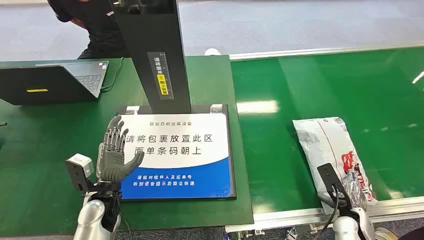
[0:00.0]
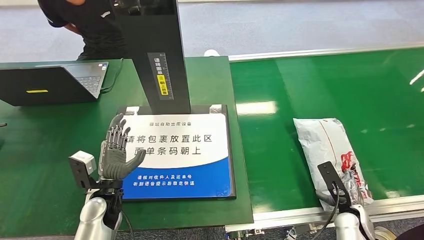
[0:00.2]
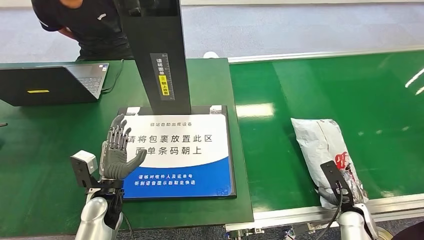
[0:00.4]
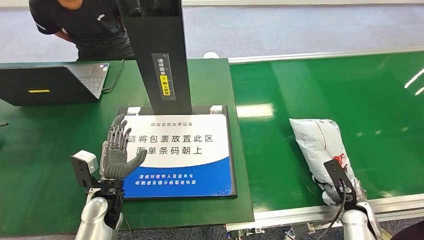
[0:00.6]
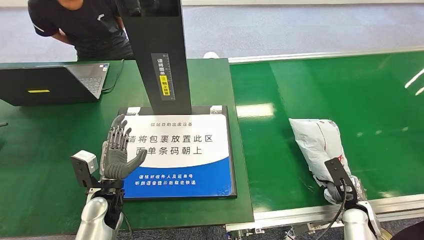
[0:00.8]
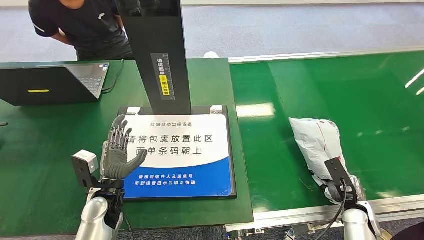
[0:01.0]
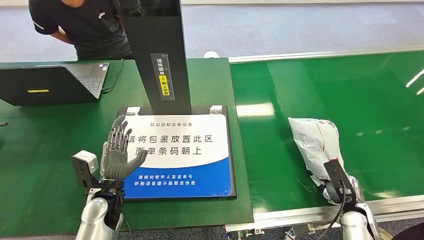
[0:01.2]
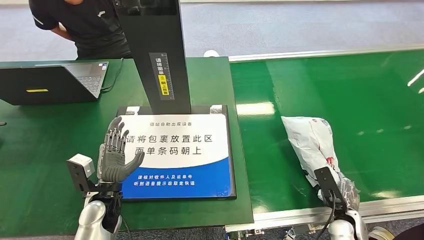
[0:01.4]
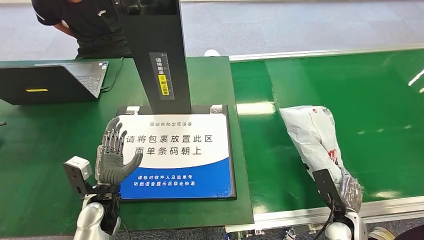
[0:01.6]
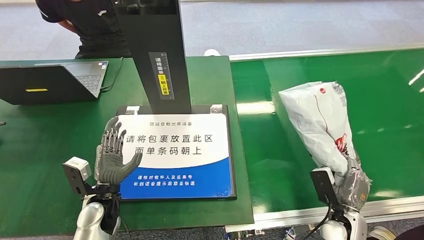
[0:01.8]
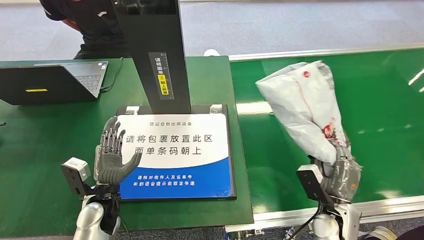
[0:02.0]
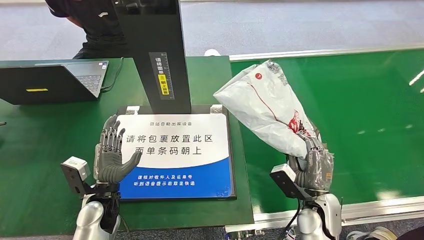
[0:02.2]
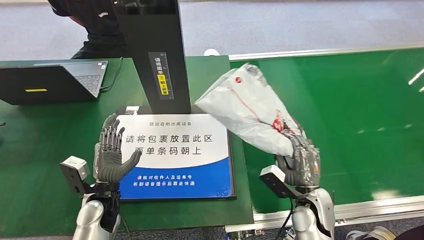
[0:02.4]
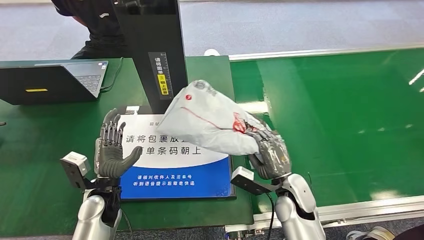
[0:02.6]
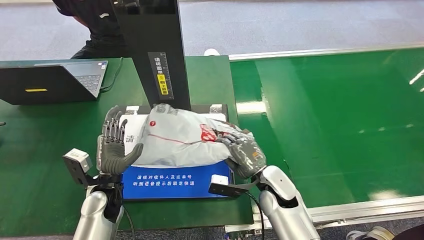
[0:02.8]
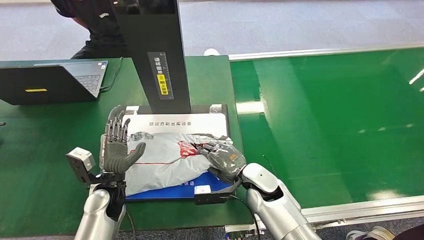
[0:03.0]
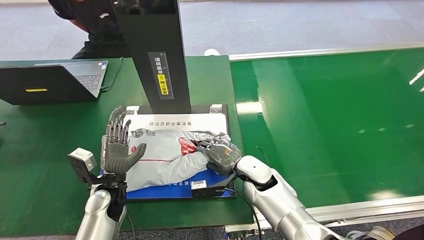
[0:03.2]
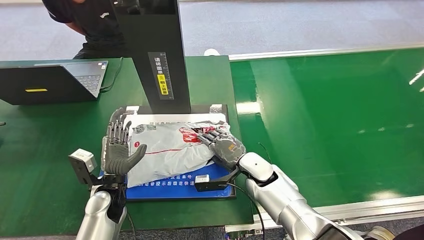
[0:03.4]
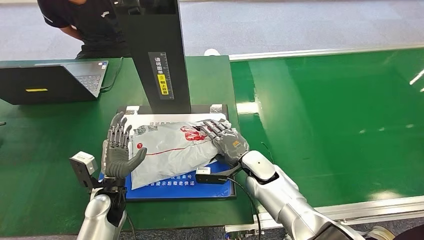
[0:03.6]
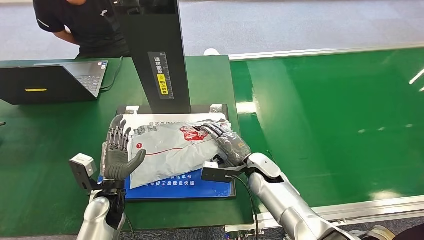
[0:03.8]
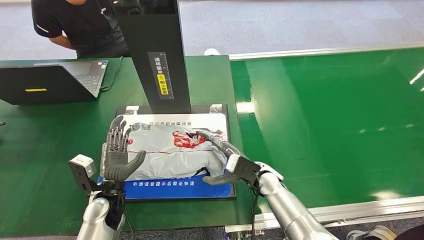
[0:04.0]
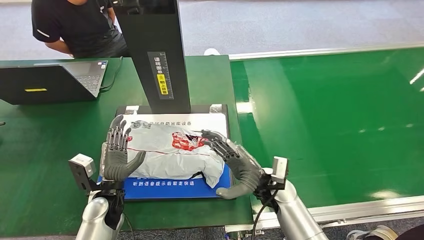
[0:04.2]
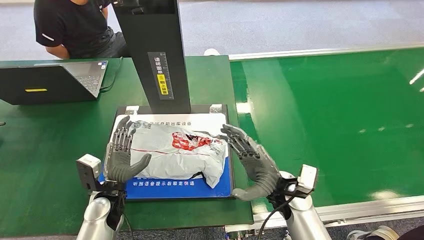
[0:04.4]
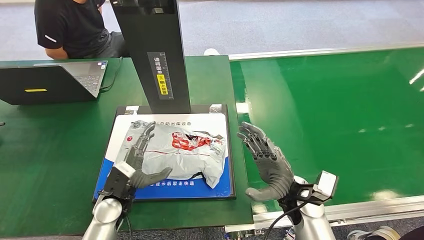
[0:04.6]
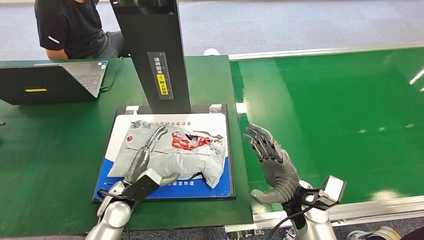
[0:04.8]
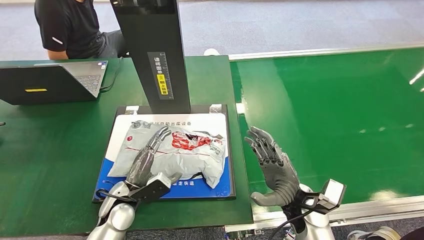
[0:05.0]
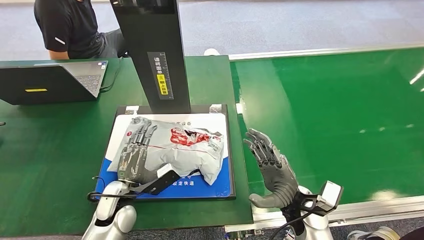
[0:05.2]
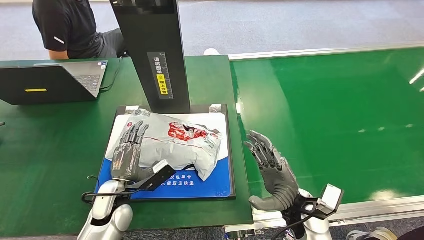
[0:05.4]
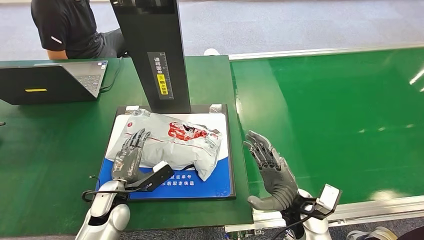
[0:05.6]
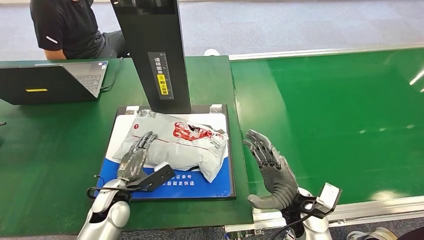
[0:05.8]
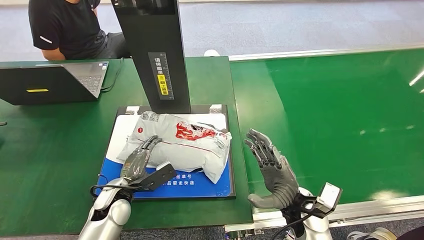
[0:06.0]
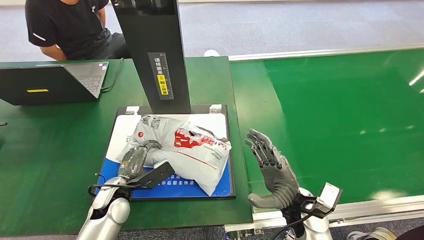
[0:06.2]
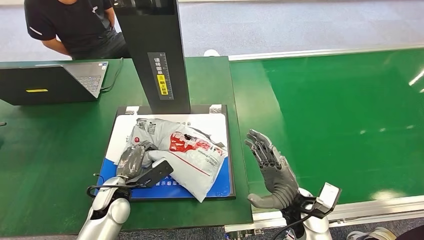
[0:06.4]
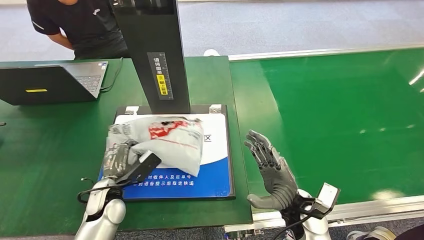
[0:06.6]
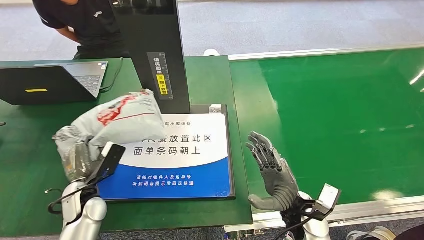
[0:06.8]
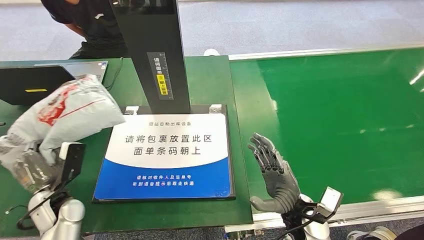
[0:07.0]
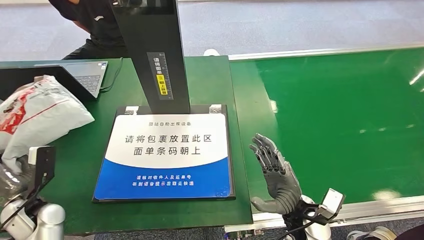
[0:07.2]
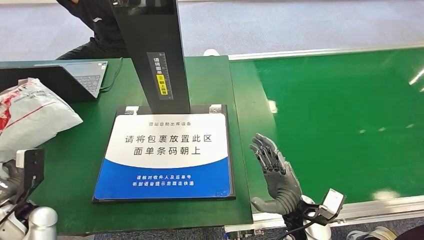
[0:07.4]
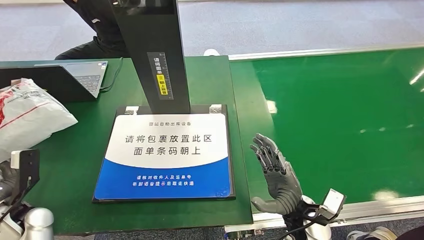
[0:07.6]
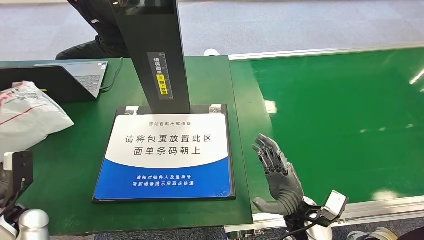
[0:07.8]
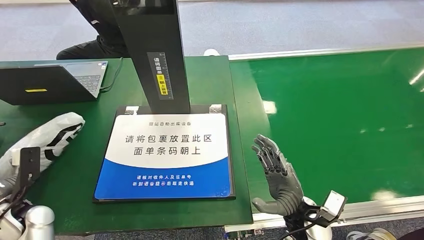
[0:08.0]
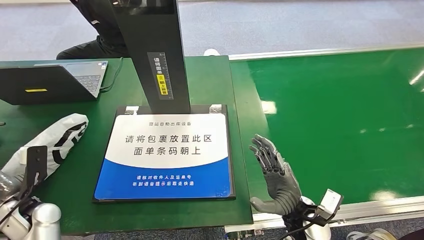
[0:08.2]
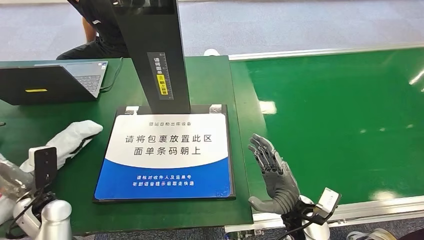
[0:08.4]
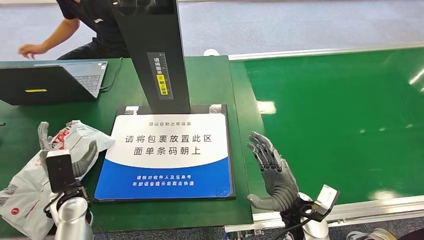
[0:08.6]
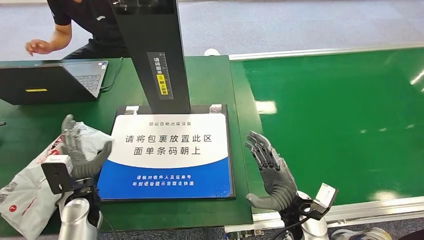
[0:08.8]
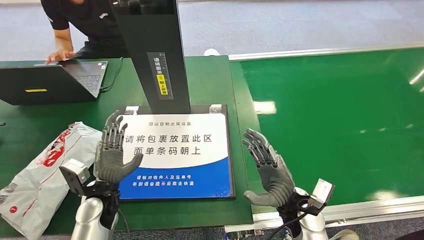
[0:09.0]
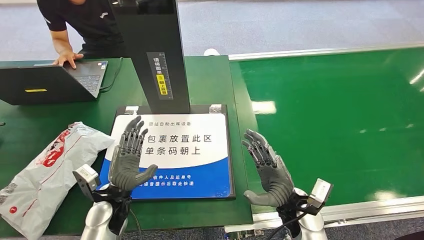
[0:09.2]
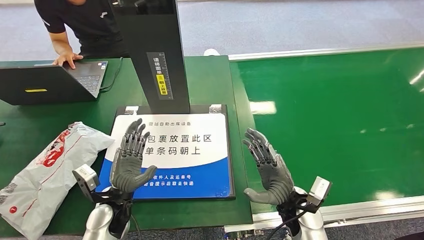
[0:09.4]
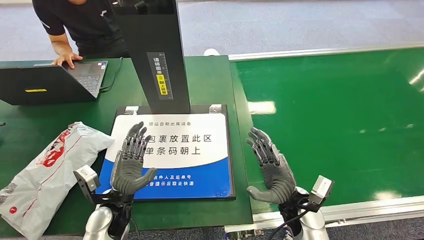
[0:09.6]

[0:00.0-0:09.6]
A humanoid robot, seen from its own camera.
Step, 0:00.0 to 0:02.0: Pick up the package from the conveyor belt.
Step, 0:02.2 to 0:04.8: Place the package onto the inbound machine.
Step, 0:05.2 to 0:07.8: Pick up the package from the inbound machine.
Step, 0:08.0 to 0:09.6: Place the package into the parcel locker.

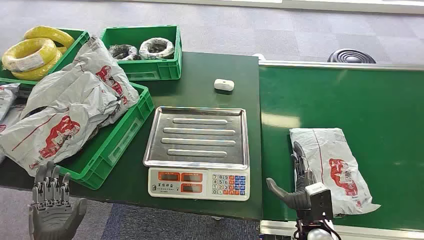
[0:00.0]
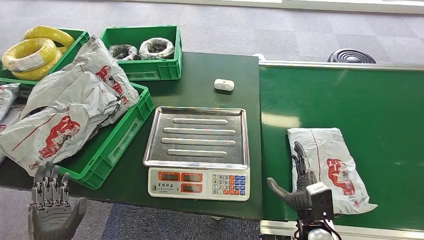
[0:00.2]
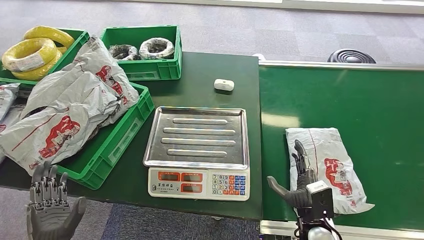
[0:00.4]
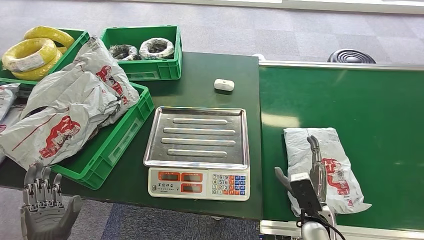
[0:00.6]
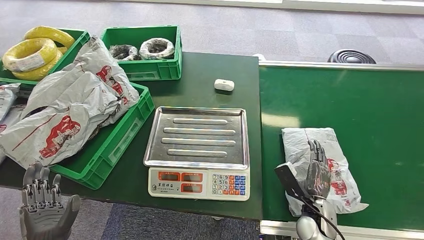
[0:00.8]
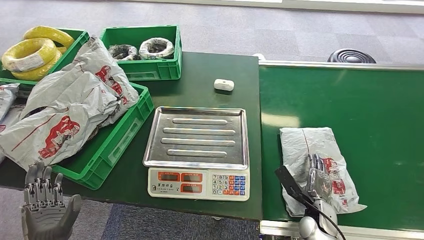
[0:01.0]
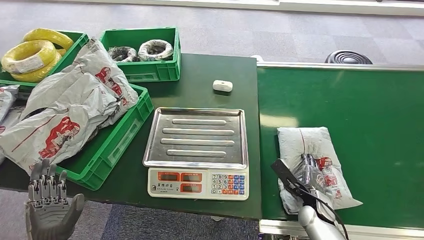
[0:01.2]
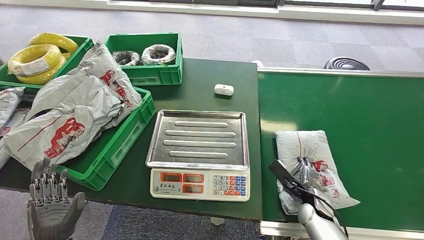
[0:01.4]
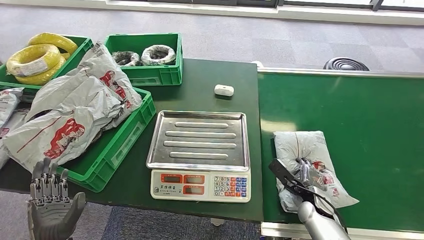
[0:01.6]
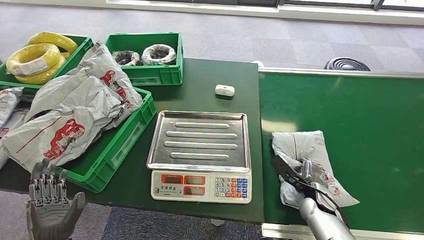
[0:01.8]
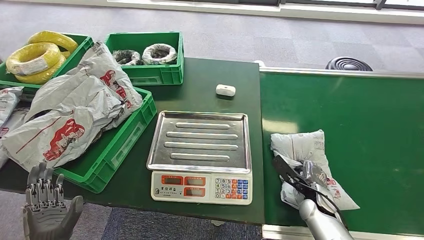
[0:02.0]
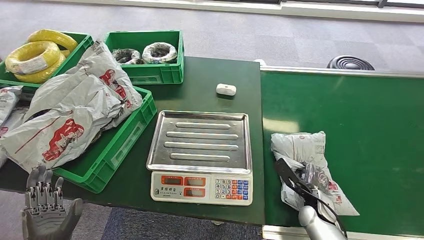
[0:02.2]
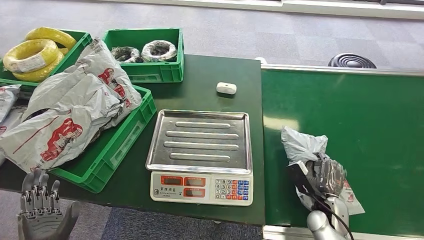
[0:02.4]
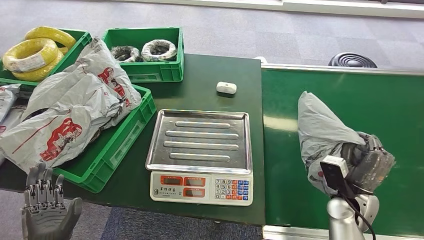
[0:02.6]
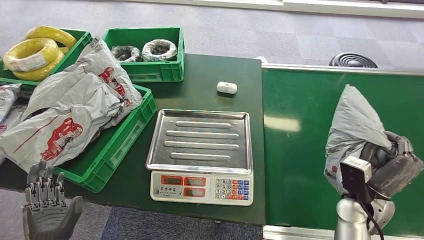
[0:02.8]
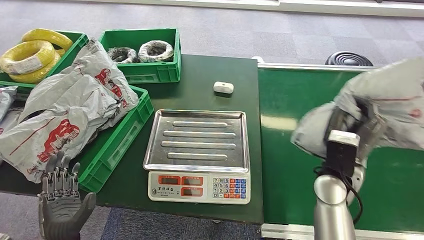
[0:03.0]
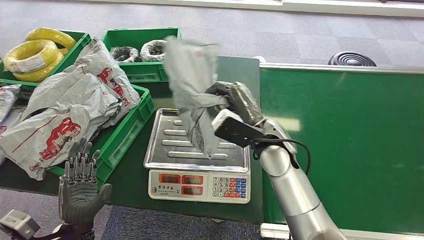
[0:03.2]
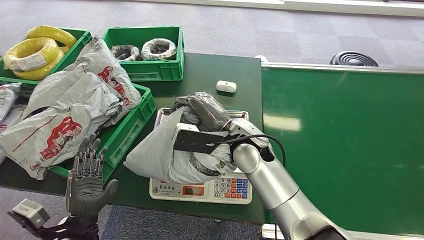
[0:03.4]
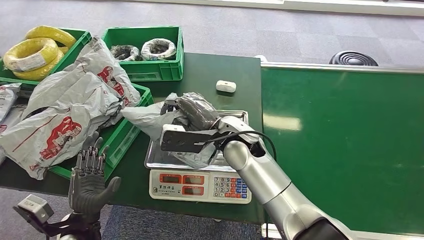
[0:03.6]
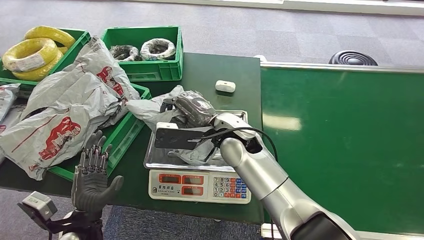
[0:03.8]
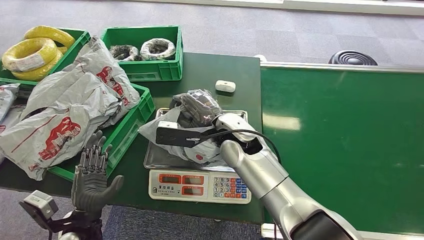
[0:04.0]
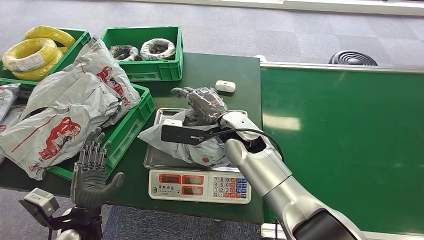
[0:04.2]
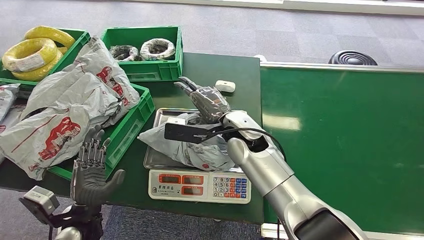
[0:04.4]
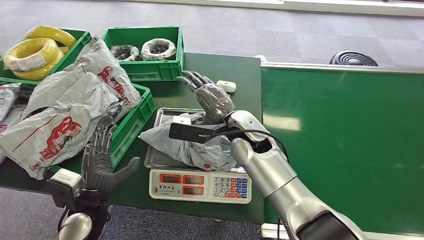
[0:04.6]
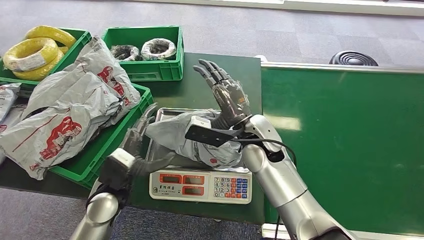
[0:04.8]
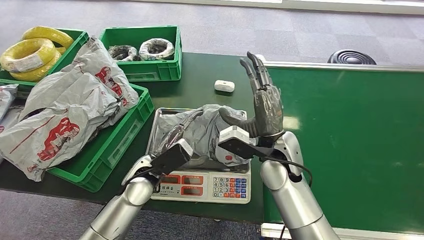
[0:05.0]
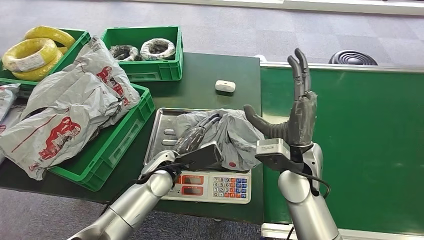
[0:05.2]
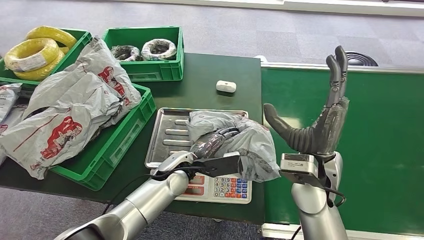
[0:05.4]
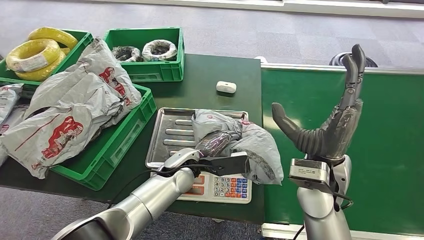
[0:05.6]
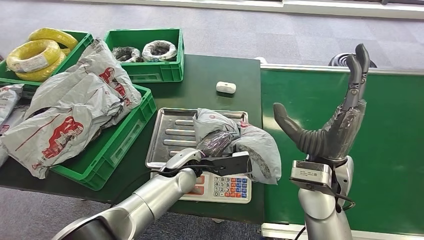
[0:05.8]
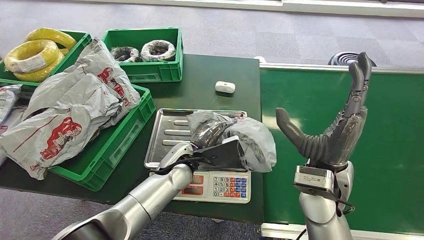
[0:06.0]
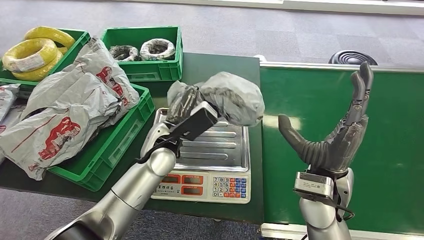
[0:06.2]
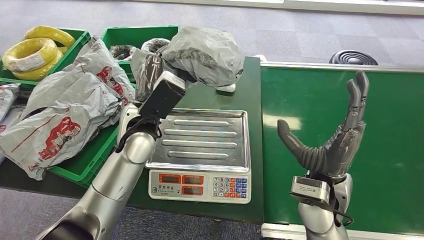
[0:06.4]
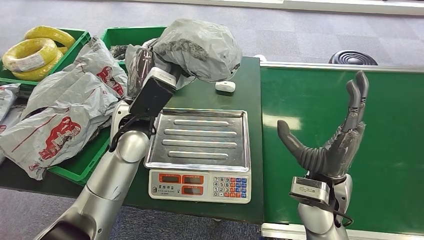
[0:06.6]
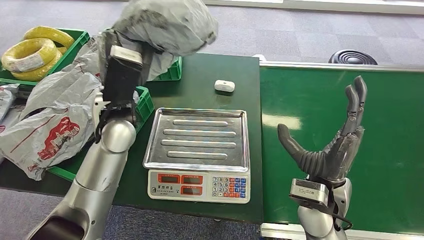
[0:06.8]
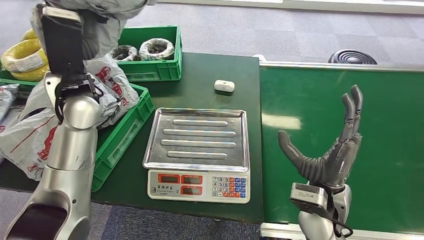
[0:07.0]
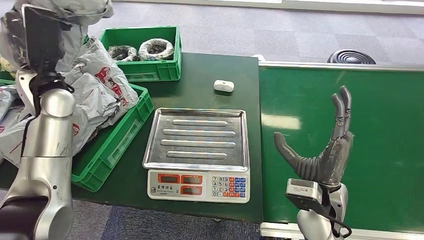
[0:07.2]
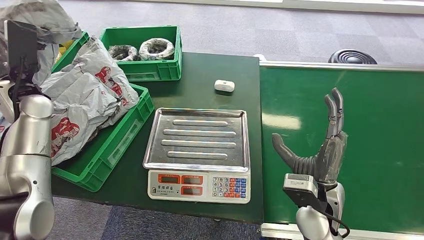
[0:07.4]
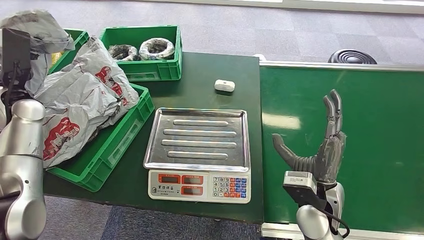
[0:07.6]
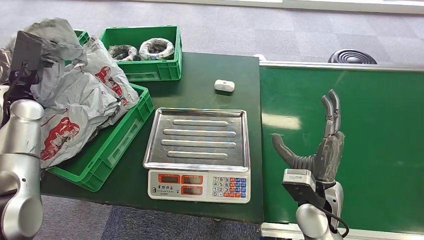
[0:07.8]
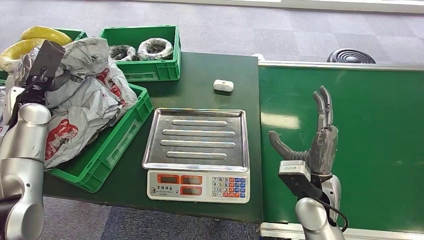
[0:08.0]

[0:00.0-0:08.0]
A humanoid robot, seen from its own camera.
Step, 0:00.0 to 0:02.8: Pick up the package from the conveyor belt.
Step, 0:03.2 to 0:05.2: Place the package onto the inbound machine.
Step, 0:05.6 to 0:06.6: Pick up the package from the inbound machine.
Step, 0:07.0 to 0:08.0: Place the package into the parcel locker.
